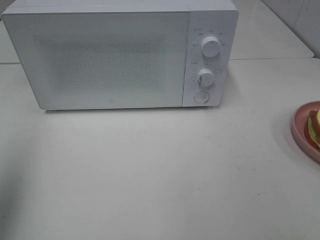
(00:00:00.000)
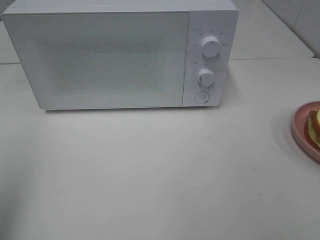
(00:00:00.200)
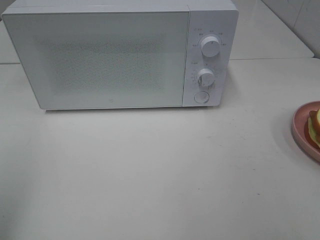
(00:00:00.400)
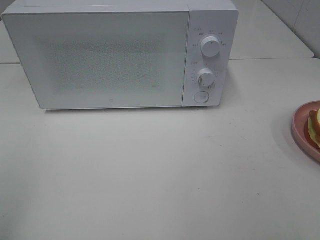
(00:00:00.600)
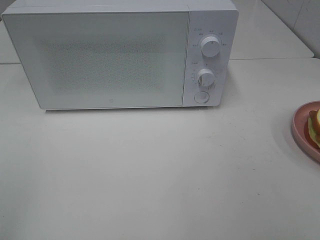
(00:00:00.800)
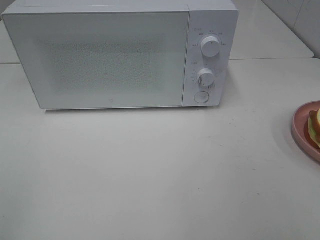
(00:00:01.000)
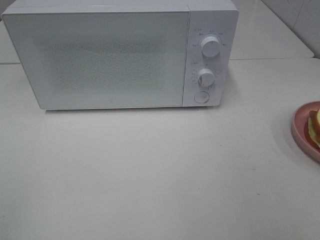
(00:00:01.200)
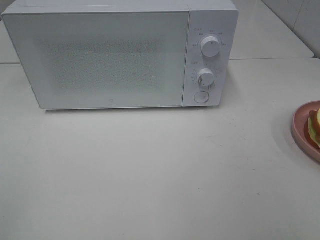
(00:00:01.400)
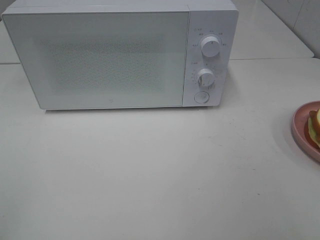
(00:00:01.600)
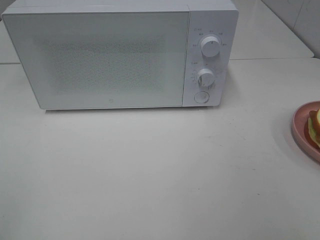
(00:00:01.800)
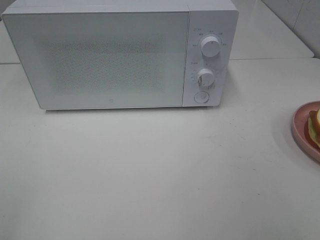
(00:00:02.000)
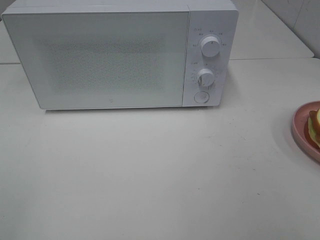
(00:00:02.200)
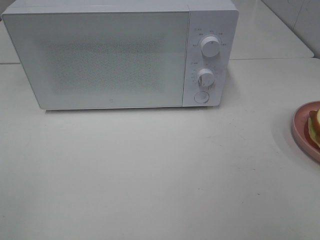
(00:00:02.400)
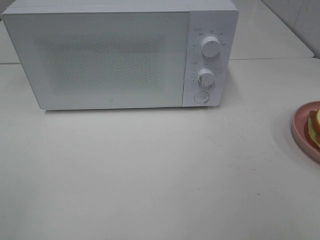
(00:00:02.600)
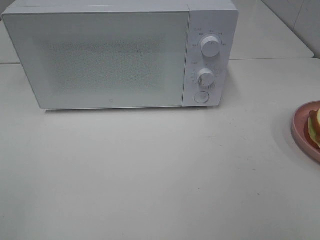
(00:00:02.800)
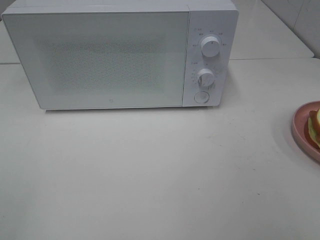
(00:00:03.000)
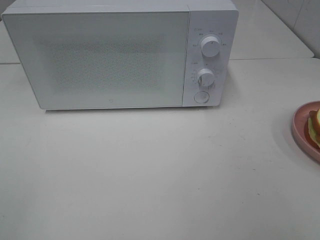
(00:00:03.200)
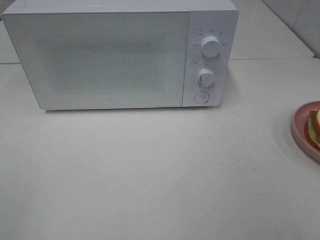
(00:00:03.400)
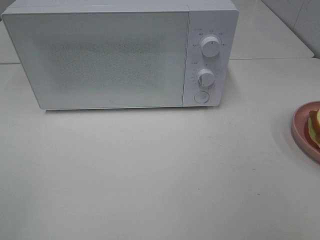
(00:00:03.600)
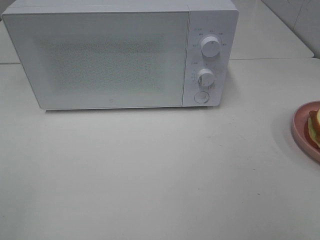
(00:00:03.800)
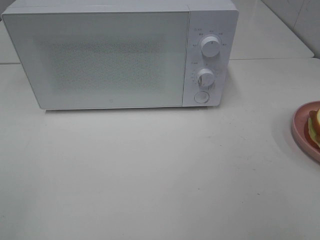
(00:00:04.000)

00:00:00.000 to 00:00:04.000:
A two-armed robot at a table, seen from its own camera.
Task of the whole recording: Heat Sandwich.
00:00:00.000 to 00:00:01.400: The left gripper goes about 20 cm backward.
00:00:02.600 to 00:00:04.000: Both grippers stay about where they are.
